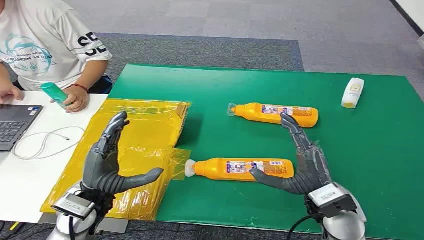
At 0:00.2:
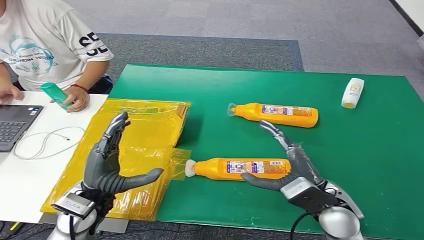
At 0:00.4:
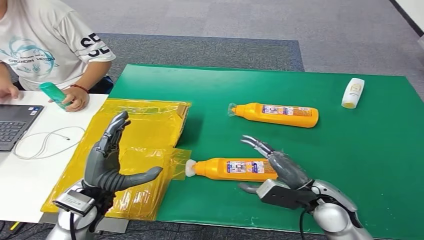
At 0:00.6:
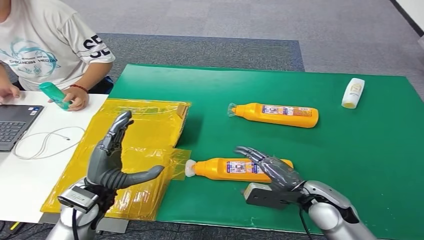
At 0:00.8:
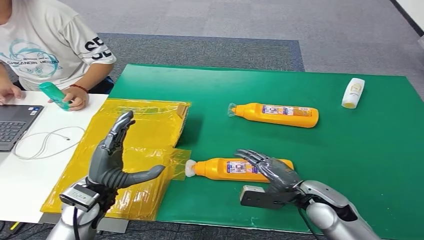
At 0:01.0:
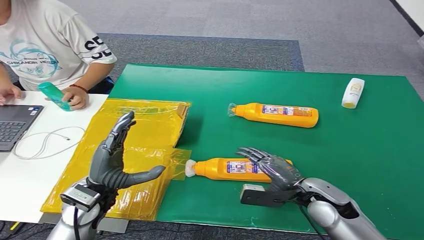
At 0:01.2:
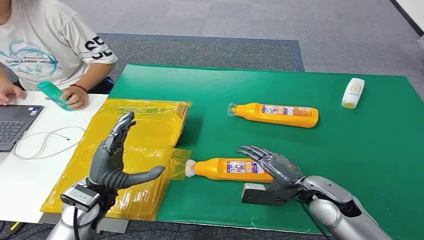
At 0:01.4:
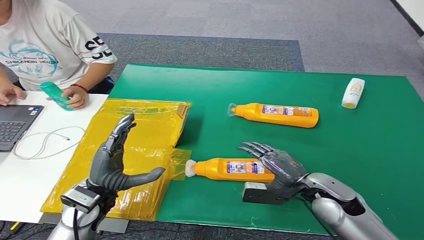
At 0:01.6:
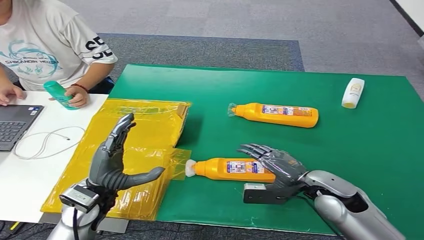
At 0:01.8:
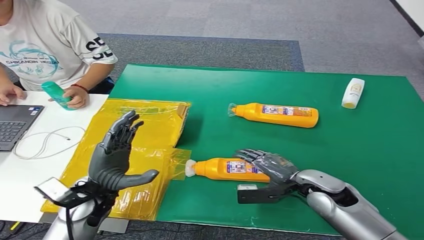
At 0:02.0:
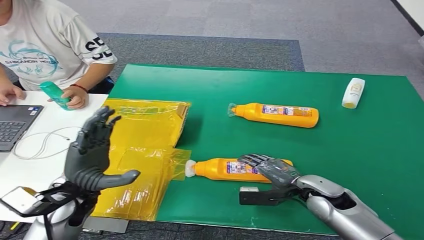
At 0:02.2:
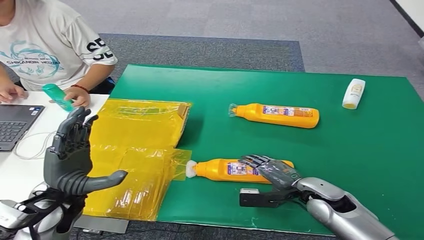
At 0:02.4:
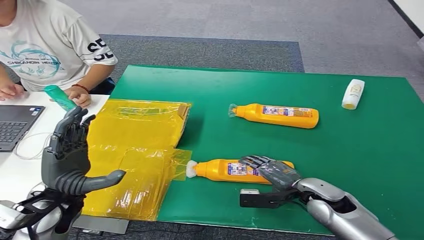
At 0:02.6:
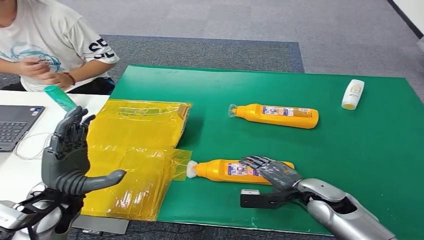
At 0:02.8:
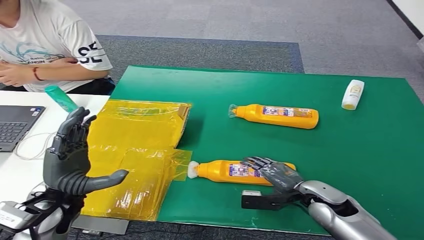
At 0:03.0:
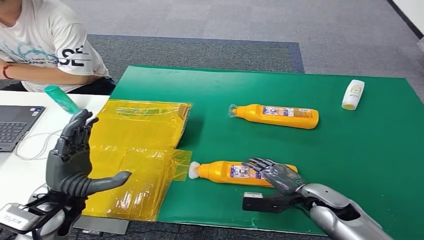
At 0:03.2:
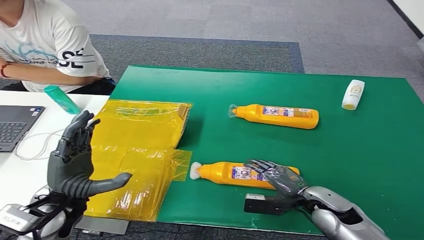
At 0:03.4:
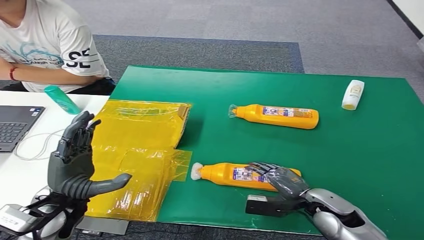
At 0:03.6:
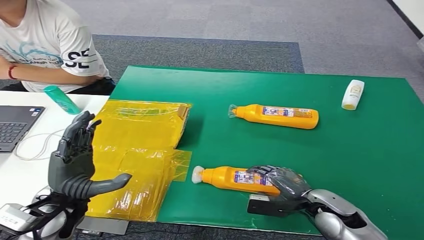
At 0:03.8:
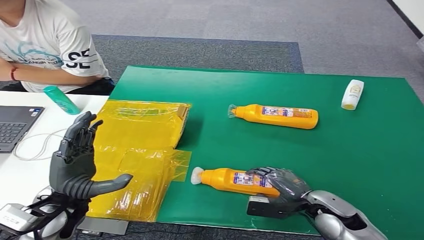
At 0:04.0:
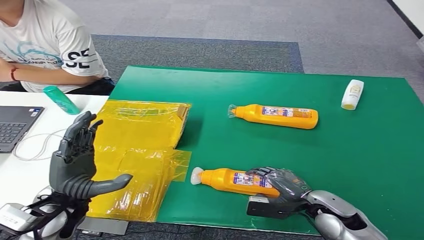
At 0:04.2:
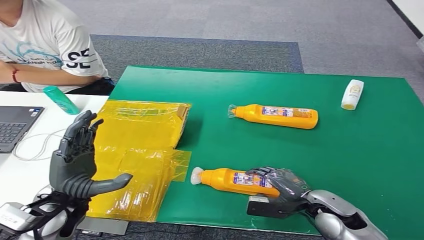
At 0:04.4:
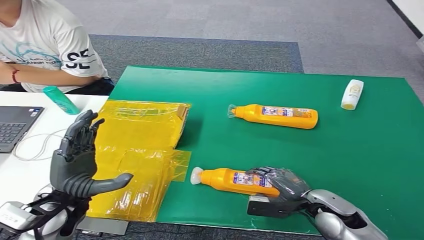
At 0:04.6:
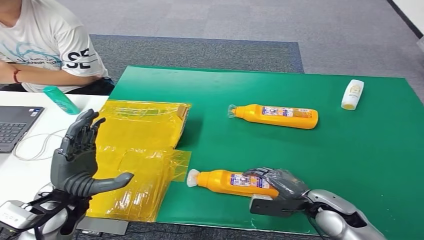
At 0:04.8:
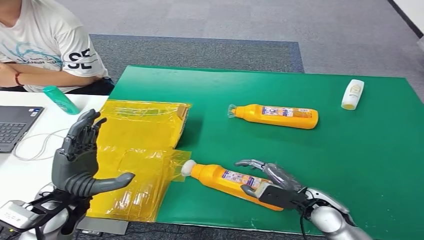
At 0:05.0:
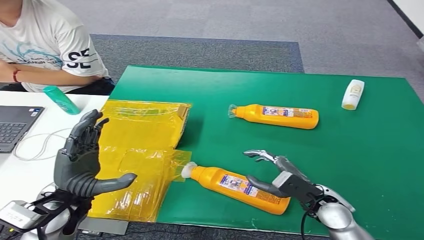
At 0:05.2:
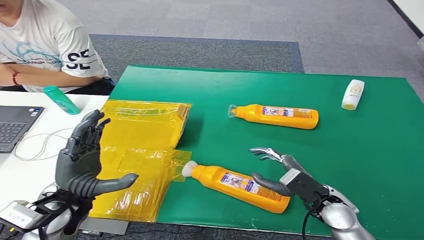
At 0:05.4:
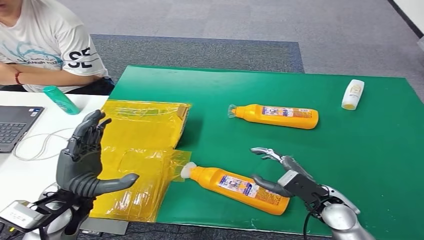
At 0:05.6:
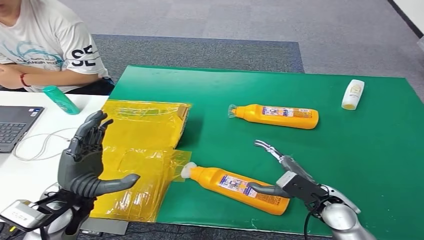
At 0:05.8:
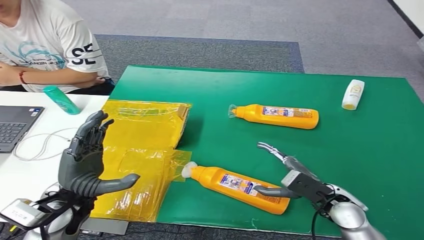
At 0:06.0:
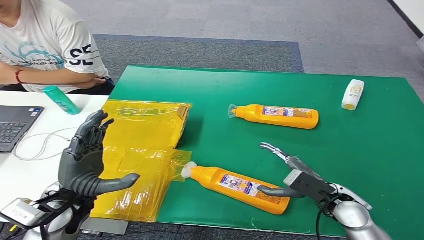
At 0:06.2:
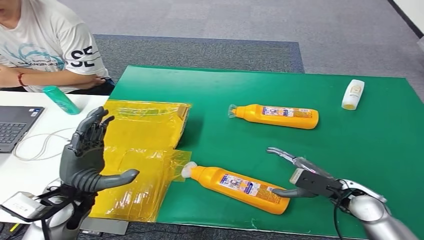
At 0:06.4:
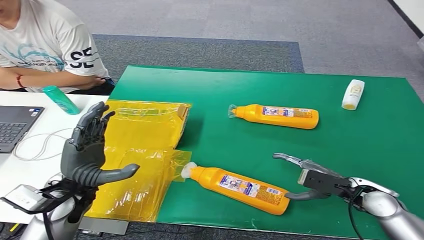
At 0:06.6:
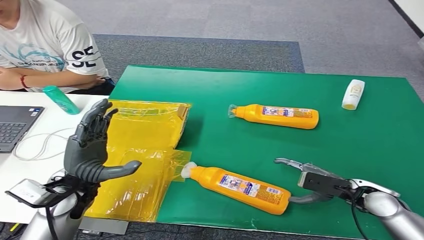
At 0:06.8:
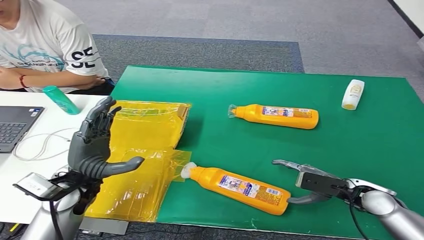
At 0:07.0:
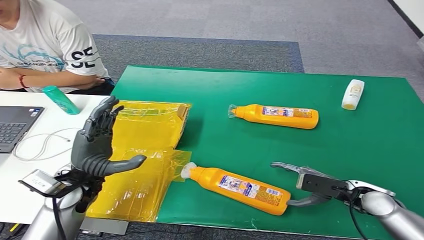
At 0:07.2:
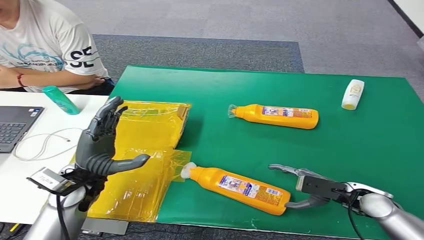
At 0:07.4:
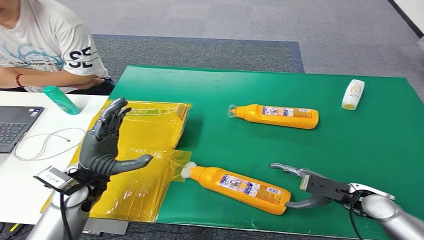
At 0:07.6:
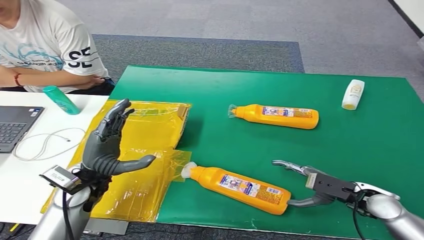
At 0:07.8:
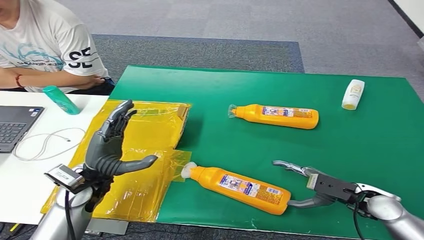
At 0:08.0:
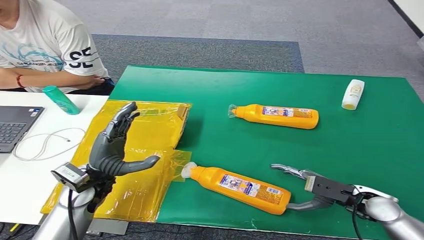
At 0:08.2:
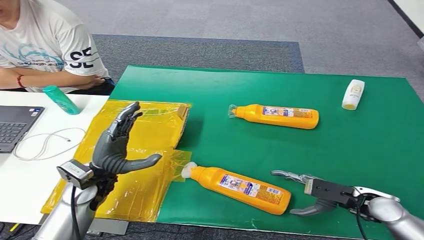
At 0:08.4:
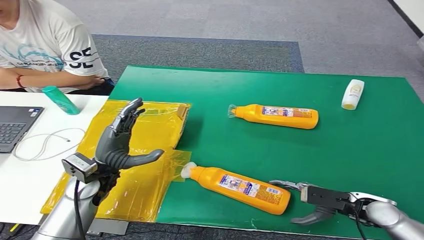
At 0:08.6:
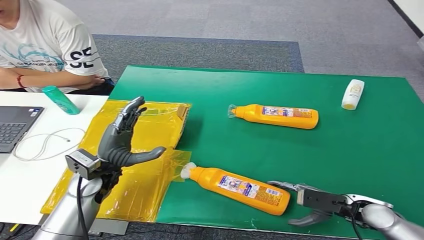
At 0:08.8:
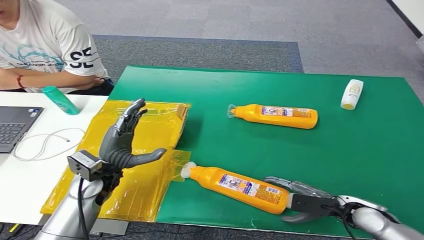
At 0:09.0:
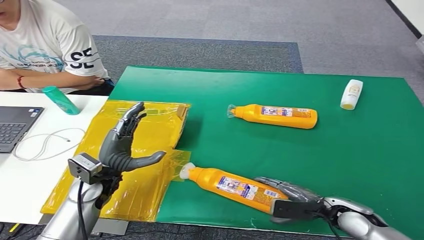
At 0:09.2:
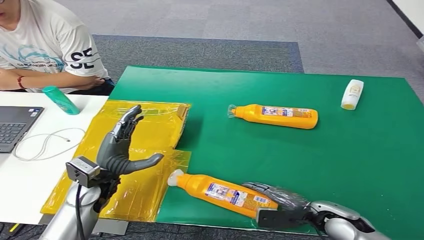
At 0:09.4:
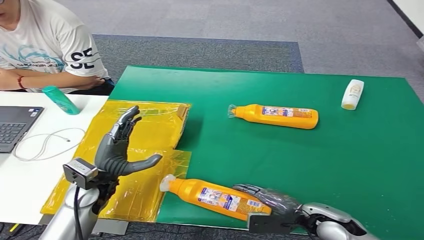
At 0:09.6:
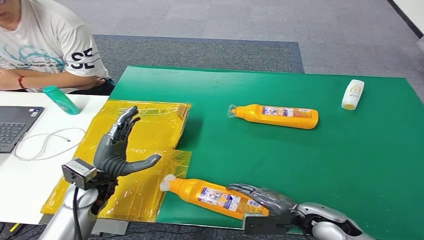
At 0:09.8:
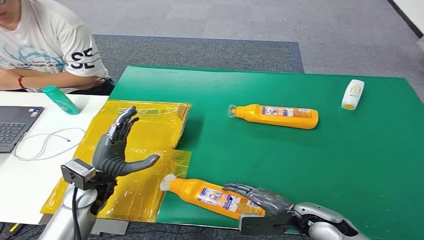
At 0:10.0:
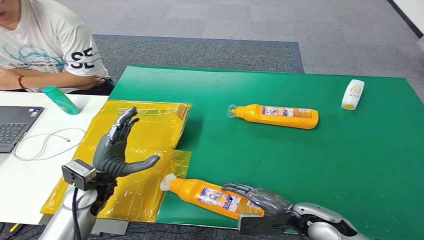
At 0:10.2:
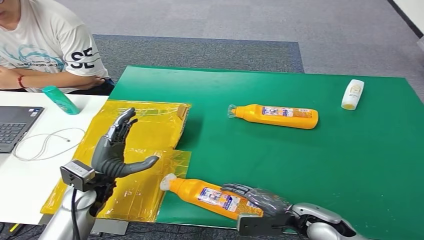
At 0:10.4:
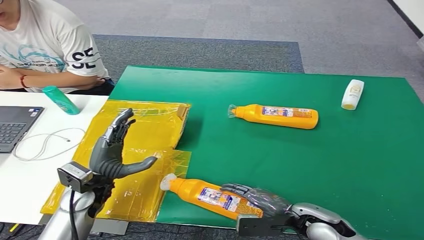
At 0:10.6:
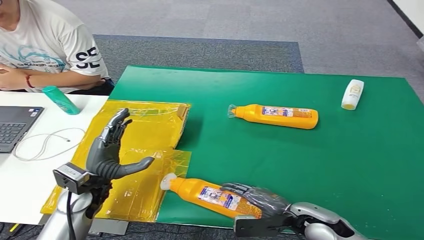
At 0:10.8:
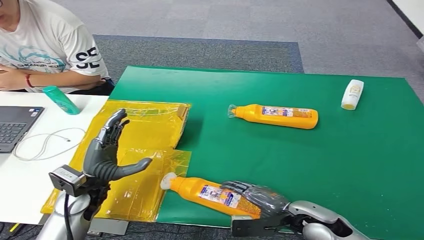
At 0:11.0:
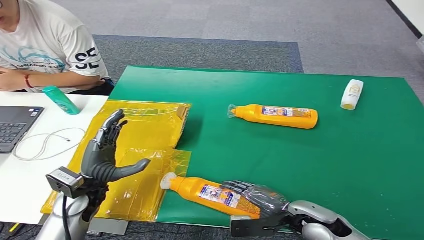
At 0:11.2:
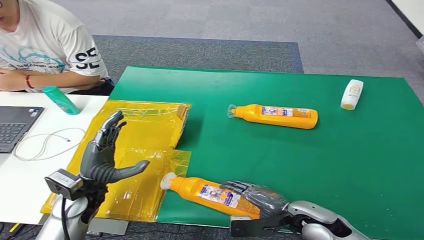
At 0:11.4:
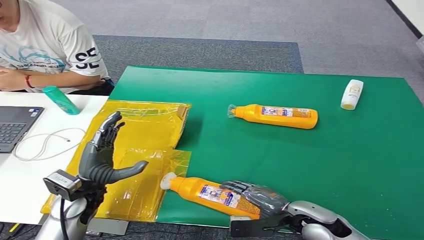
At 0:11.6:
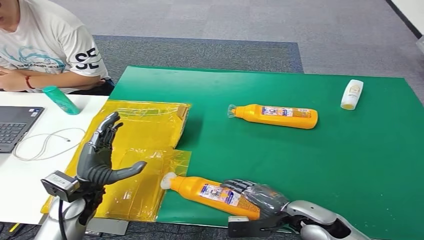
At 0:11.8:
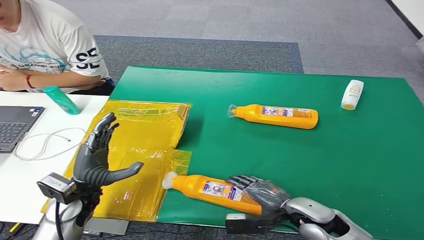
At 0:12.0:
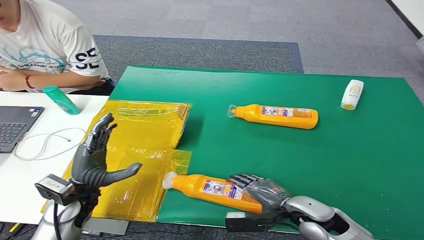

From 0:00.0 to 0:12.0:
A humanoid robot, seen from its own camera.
From 0:03.0 to 0:04.4: The hands stay close to where they were, moving slightly.
From 0:06.0 to 0:07.6: The right hand travels to the right by approximately 5 cm; the left hand moves roughly 5 cm.
From 0:07.6 to 0:09.0: The right hand changes place by about 5 cm.
From 0:09.0 to 0:10.4: The right hand is displaced to the left by some 10 cm.

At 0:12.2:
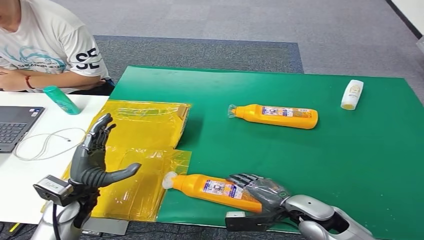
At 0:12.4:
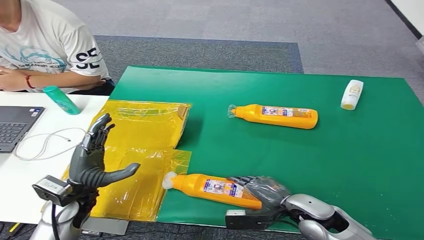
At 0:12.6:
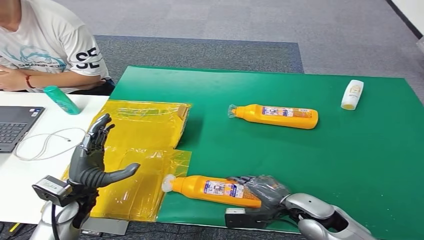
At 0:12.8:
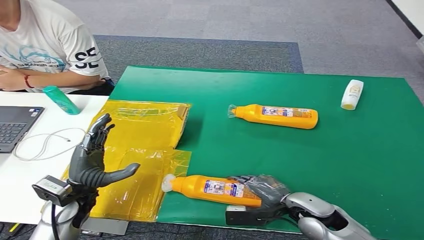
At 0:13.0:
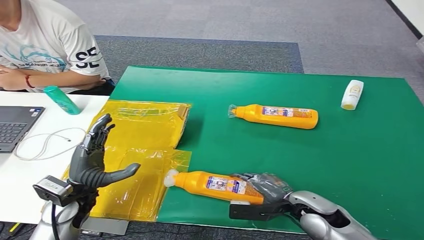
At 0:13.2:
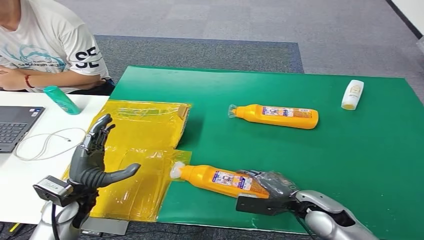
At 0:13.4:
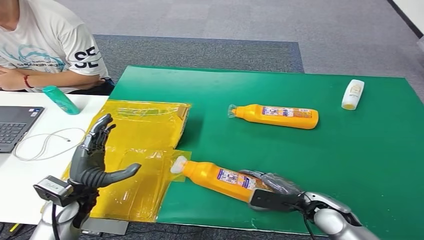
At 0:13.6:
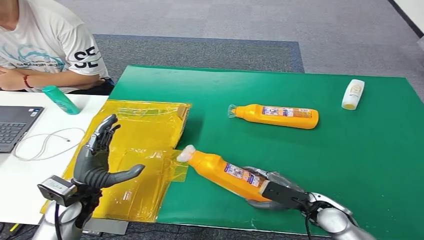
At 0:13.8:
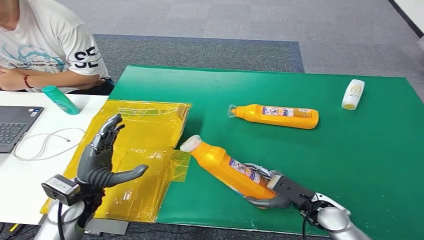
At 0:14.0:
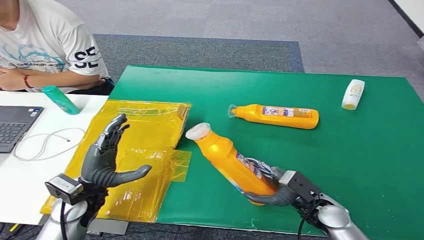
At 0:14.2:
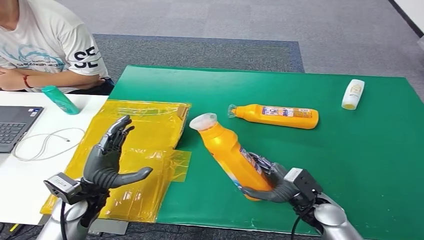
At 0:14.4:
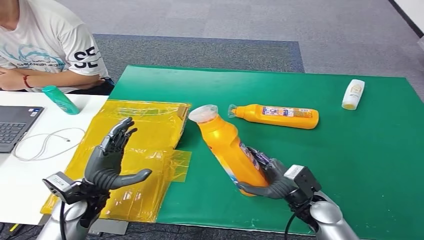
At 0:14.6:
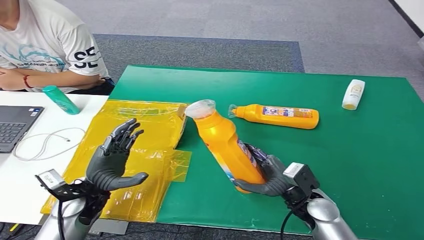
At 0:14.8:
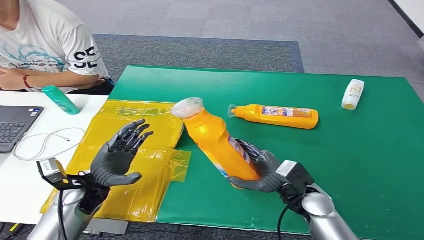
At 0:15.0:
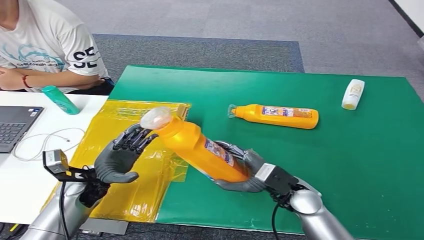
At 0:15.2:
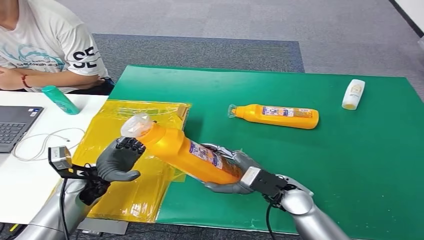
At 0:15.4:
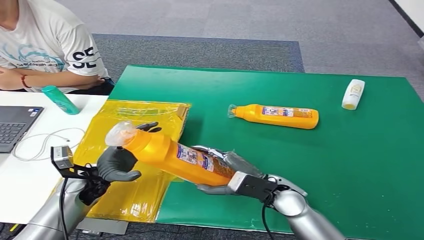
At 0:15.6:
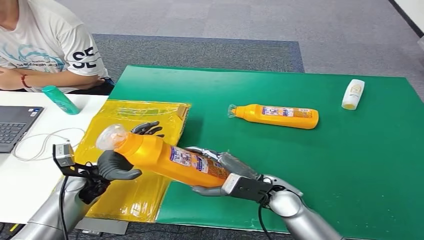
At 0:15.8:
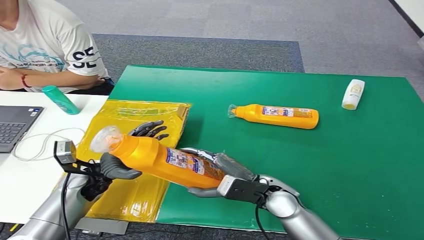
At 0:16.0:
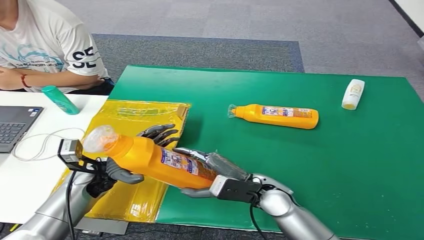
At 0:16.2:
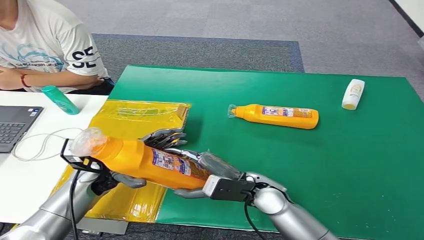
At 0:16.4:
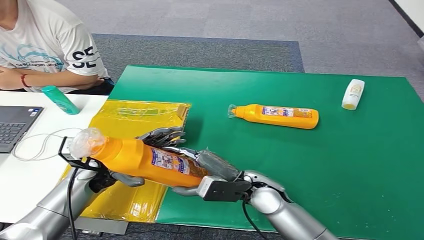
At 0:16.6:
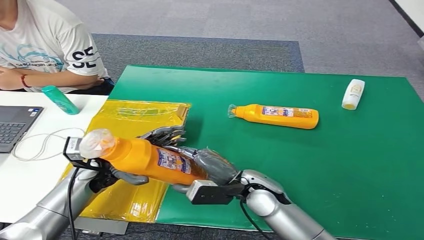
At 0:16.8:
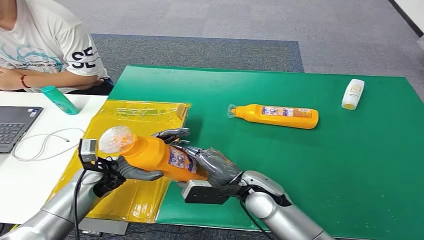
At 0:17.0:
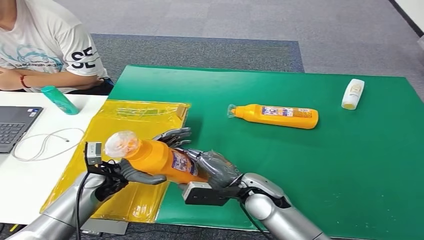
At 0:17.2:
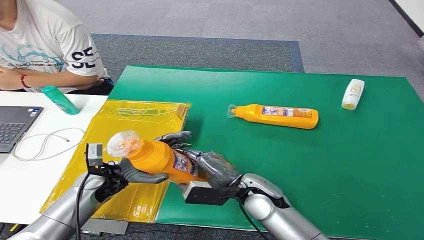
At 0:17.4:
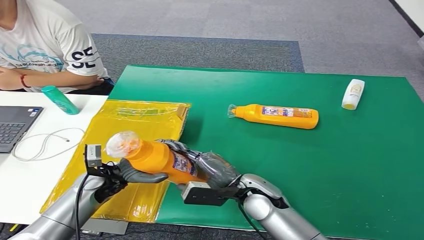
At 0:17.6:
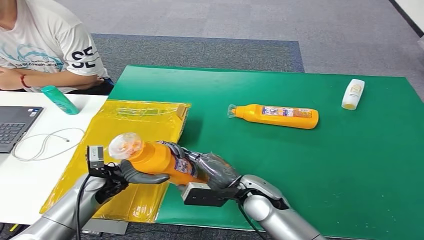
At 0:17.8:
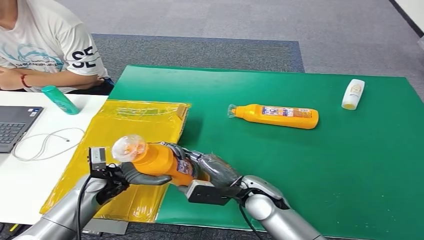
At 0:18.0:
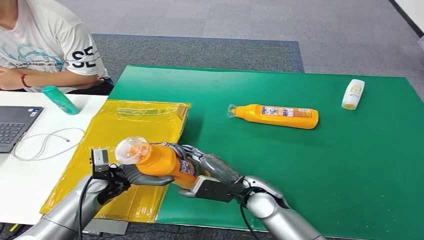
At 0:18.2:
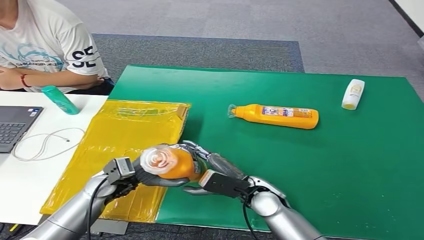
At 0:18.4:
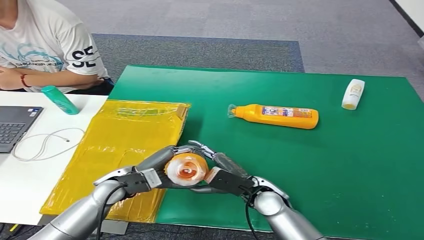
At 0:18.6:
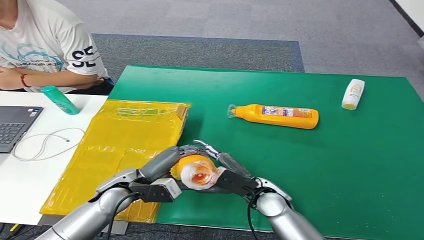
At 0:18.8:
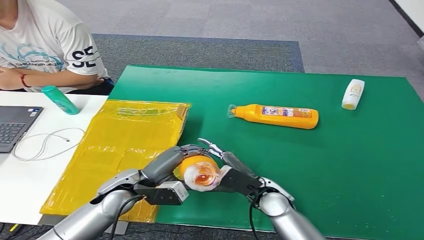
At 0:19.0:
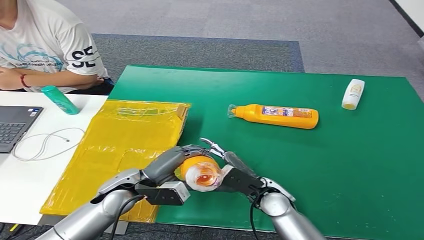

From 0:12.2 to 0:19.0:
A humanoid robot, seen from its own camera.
Step, from 0:12.2 to 0:14.4: Pick up the bottle from the table.
From 0:13.6 to 0:15.0: The left hand shifts by approximately 5 cm; the right hand is displaced to the left by about 5 cm.
From 0:15.0 to 0:16.2: The right hand moves to the left, approximately 5 cm.
From 0:17.6 to 0:19.0: The left hand shifts some 5 cm to the right.
